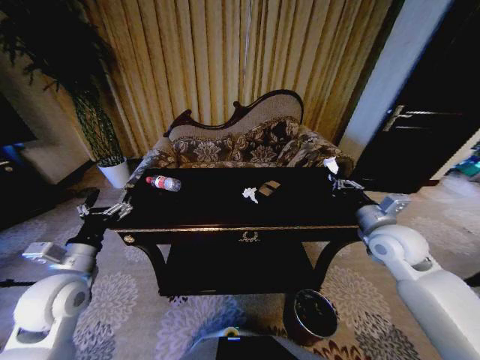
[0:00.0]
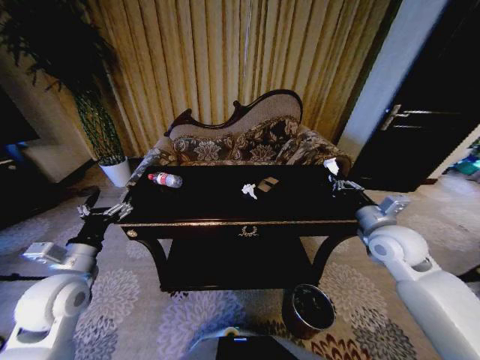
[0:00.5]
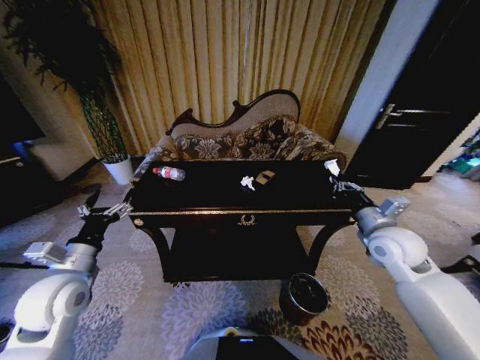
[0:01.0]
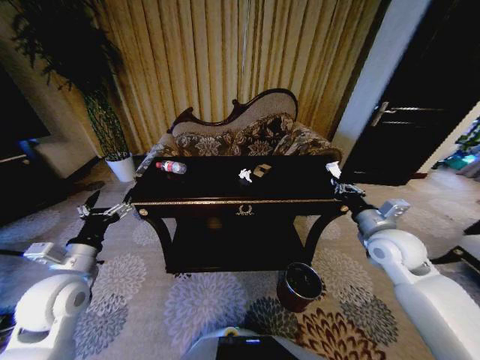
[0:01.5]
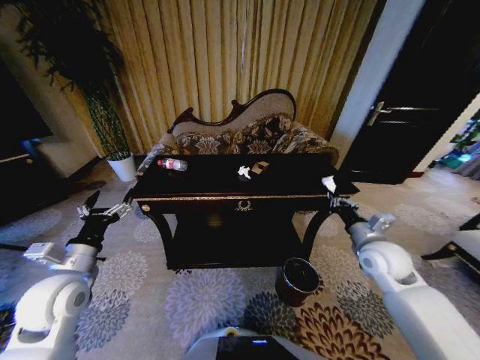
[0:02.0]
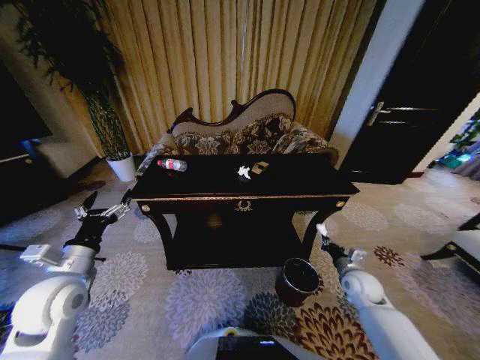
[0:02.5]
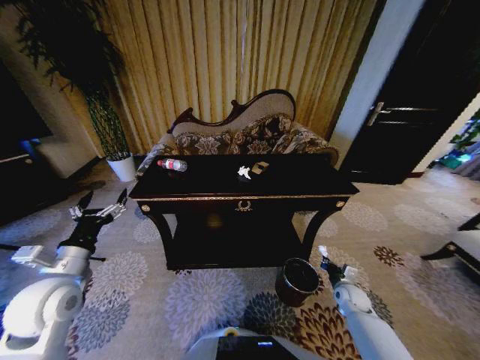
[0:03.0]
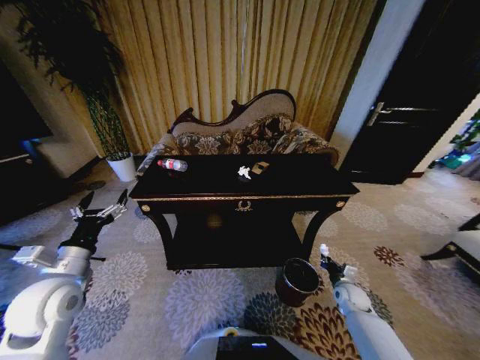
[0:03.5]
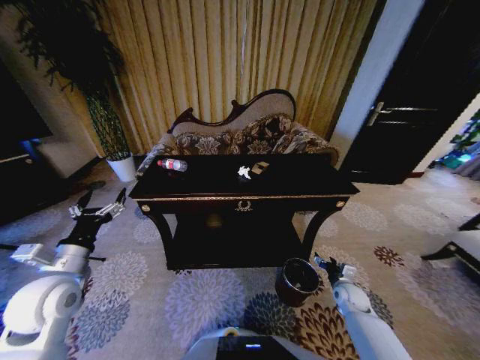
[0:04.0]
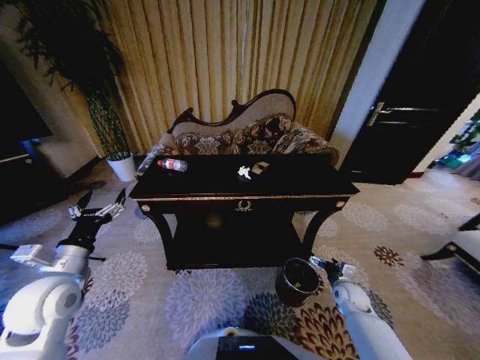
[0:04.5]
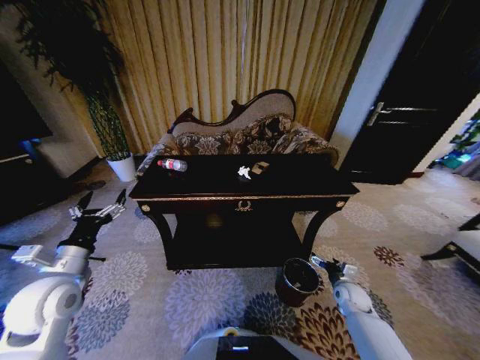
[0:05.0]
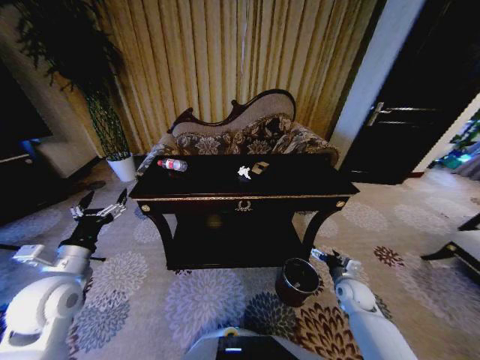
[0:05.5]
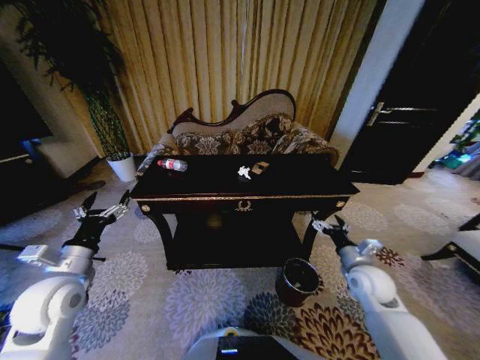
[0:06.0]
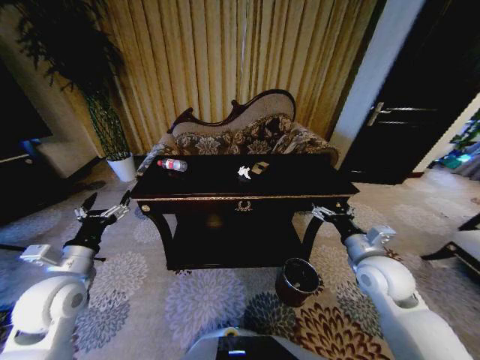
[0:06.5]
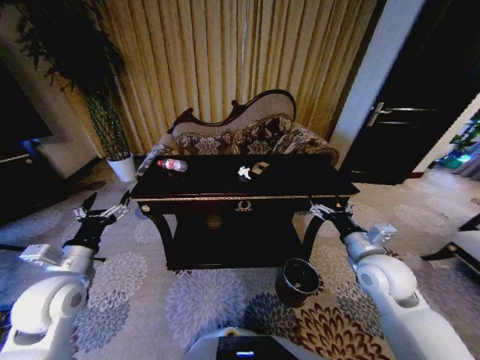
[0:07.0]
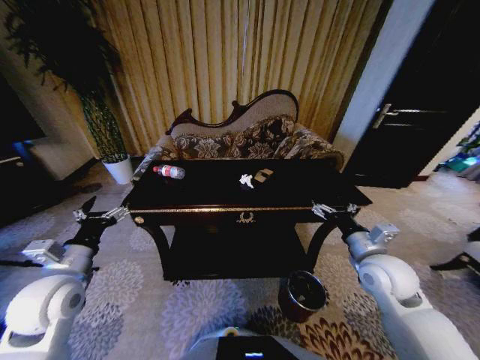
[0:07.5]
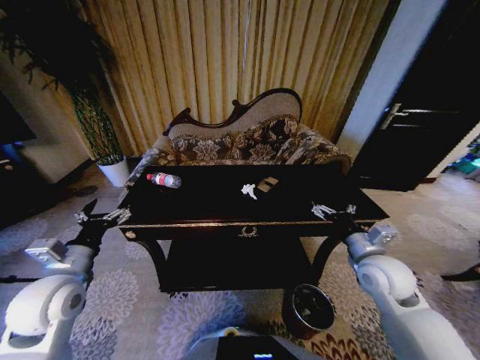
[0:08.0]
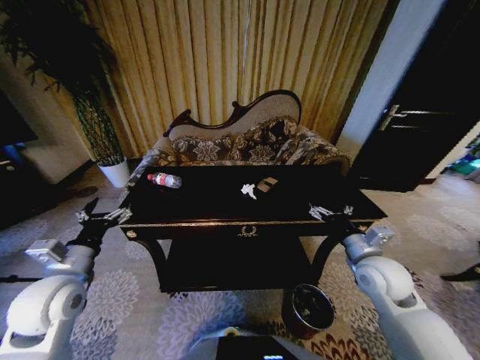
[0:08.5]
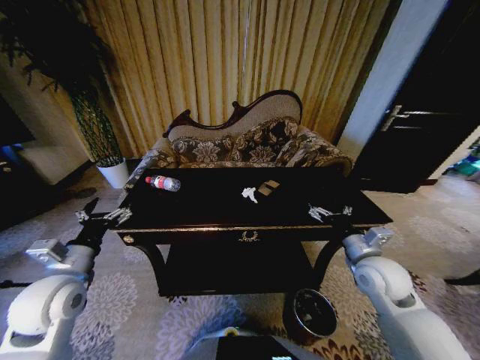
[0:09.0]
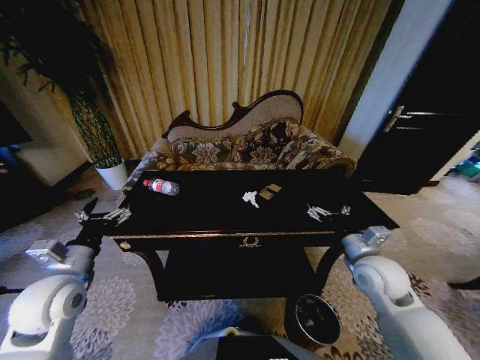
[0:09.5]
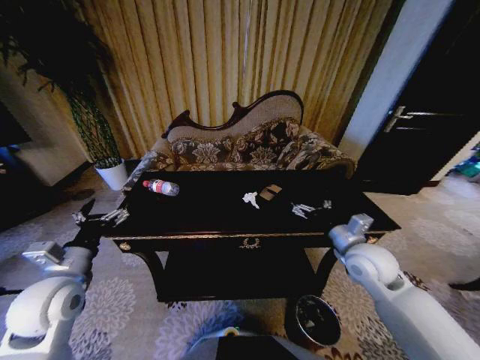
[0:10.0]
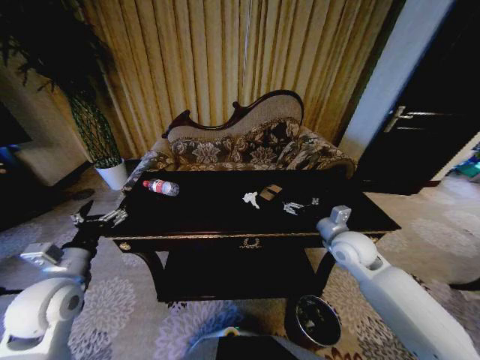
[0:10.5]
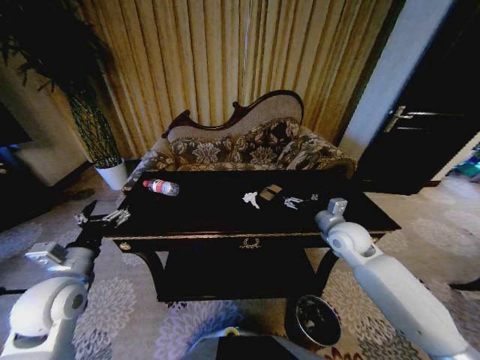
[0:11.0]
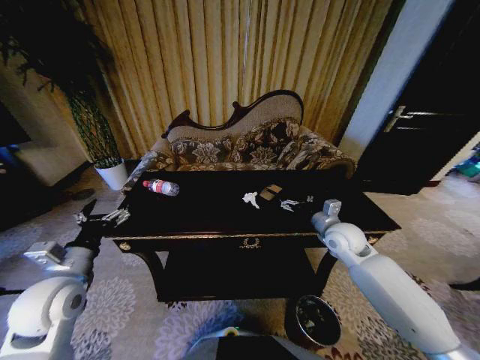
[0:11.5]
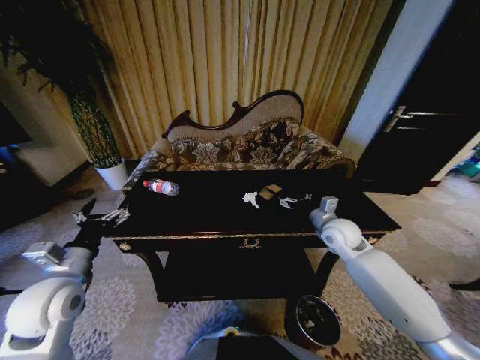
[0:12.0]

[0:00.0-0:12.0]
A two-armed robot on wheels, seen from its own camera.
Task of the whole recording: Move to the front of the table and place the trash on the table into the trash bin.
0:00.0 to 0:02.0: The right gripper is displaced downward by about 5 cm.
0:02.0 to 0:04.0: The right gripper goes about 25 cm downward, and opens up.
0:04.0 to 0:06.0: The right gripper goes about 15 cm upward.
0:06.0 to 0:08.0: The right gripper is displaced upward by some 10 cm.
0:08.0 to 0:10.0: There are only small adjustments of the grippers.
0:10.0 to 0:12.0: The right gripper shifts some 10 cm forward.

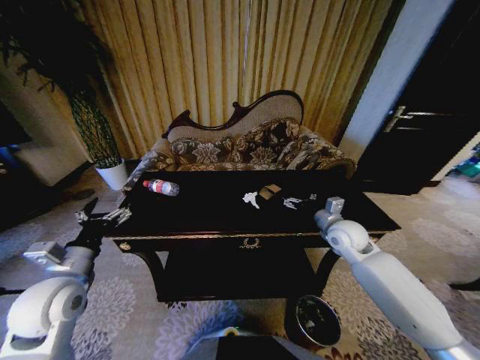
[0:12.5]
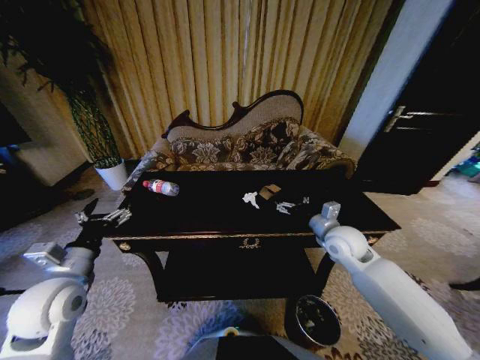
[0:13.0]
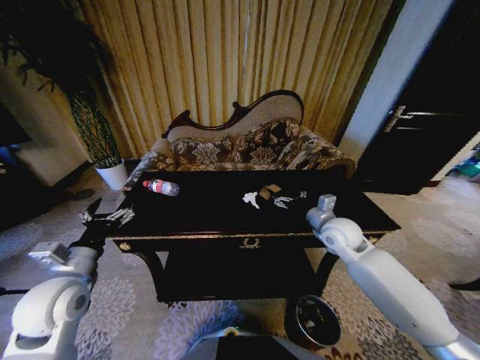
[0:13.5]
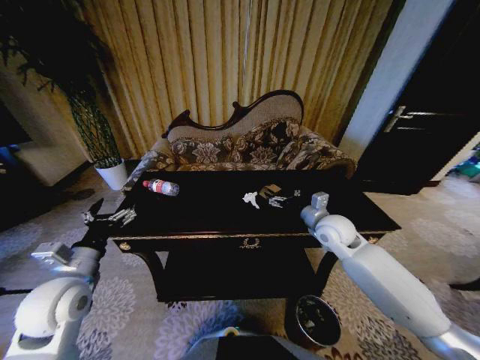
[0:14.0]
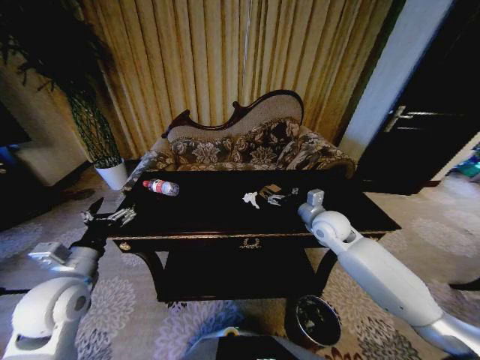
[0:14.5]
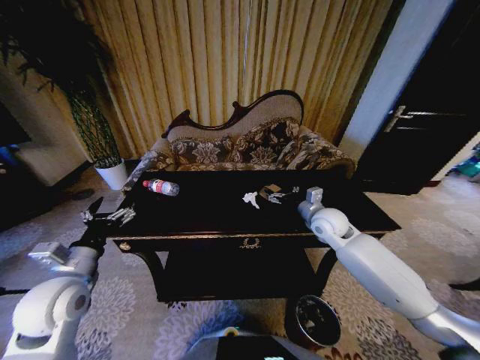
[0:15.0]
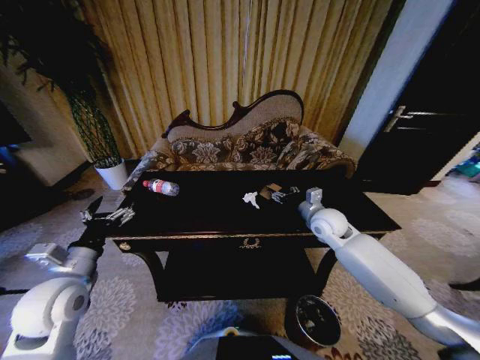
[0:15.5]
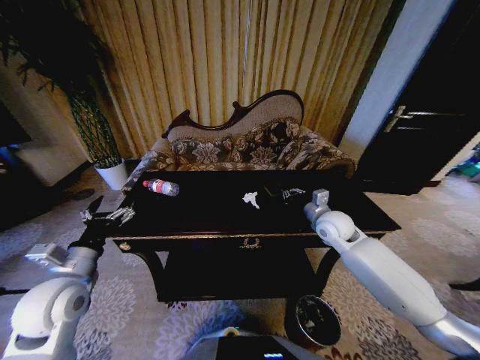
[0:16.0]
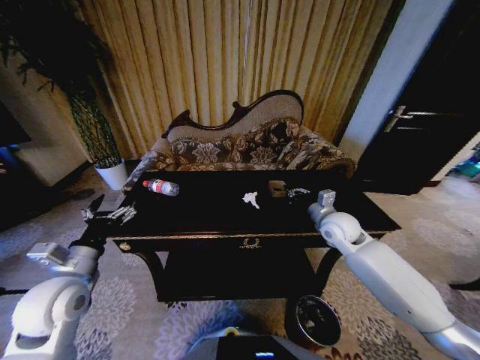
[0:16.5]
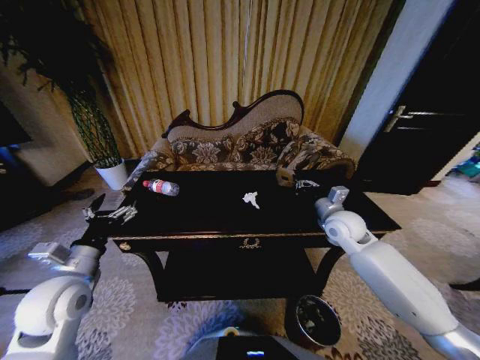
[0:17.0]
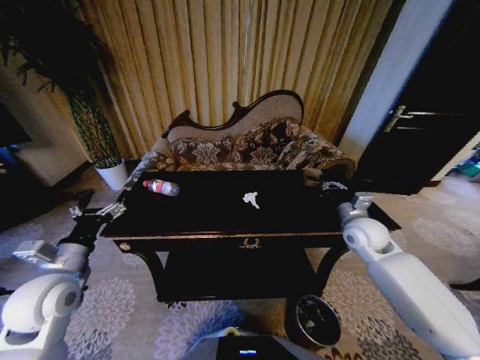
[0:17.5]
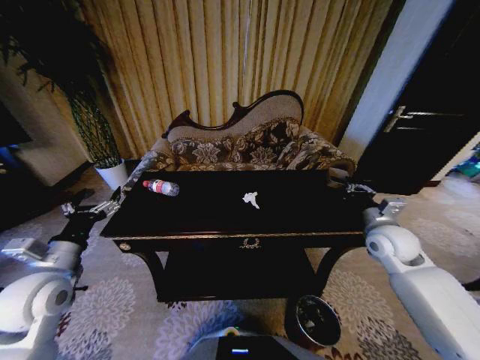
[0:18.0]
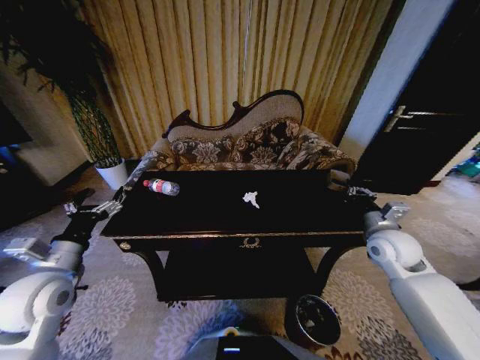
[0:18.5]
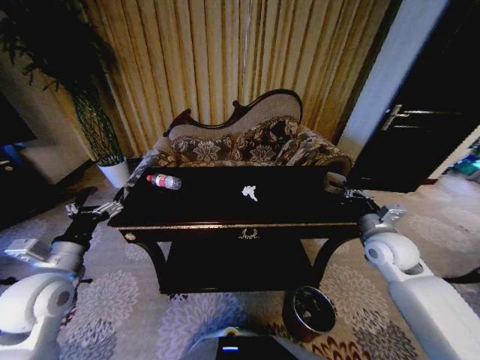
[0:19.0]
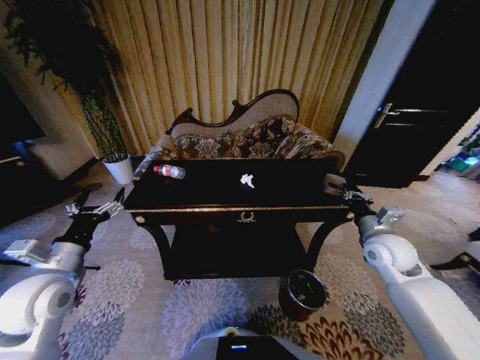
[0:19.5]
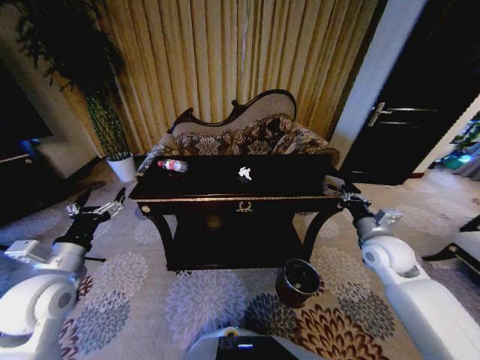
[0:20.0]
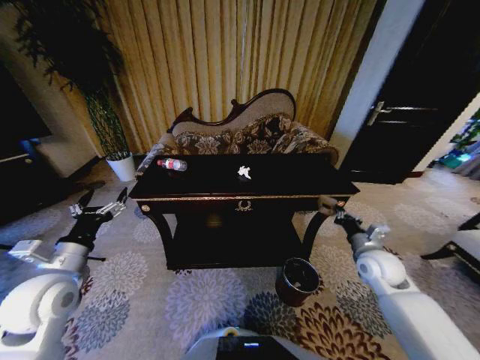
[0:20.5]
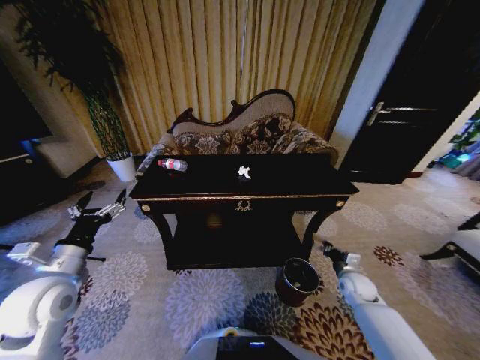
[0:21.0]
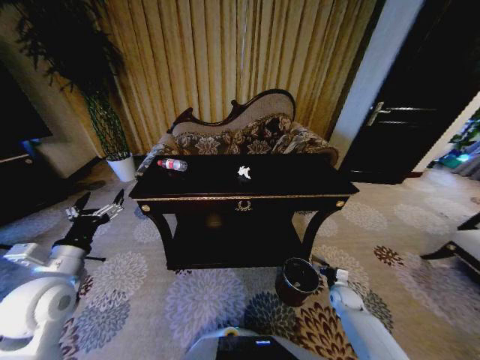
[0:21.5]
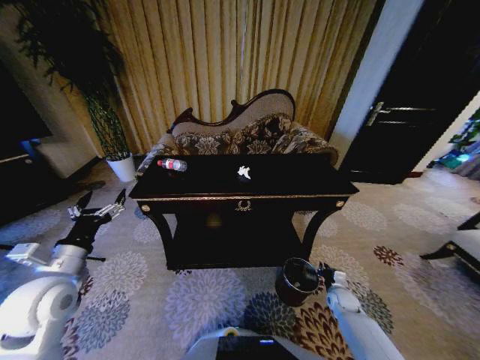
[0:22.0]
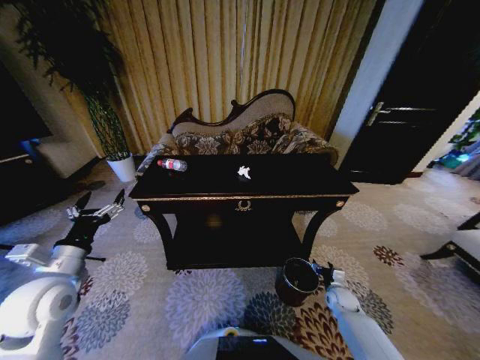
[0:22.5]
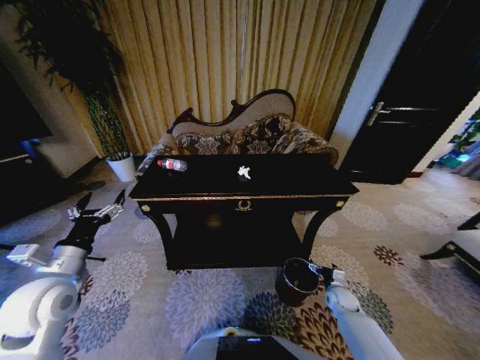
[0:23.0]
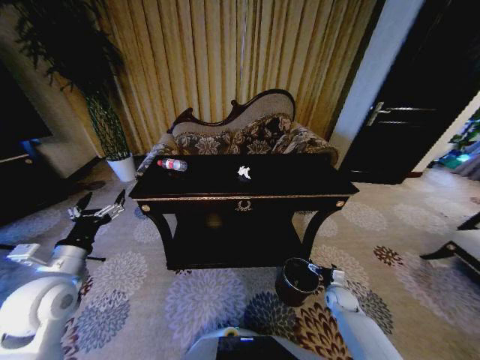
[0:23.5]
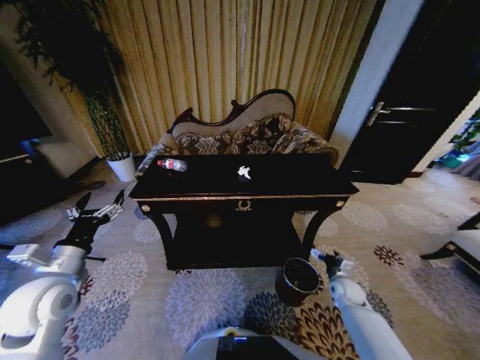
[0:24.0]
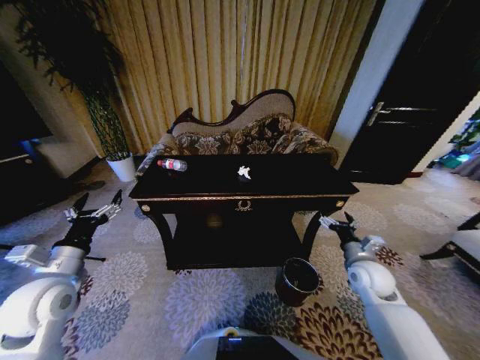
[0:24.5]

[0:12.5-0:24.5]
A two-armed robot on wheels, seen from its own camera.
Task of the whole recording: Move to the front of the table and place the trash on the table into the trash bin.
0:12.5 to 0:14.5: The right gripper ends up approximately 5 cm from where it was.
0:14.5 to 0:16.5: The right gripper closes its fingers.
0:16.5 to 0:18.5: The right gripper moves to the right and backward, some 10 cm.
0:18.5 to 0:20.5: The right gripper travels downward by some 10 cm.
0:20.5 to 0:22.5: The right gripper heads downward, covering approximately 25 cm, and opens up.
0:22.5 to 0:24.5: The right gripper moves upward, about 25 cm, and opens its fingers.

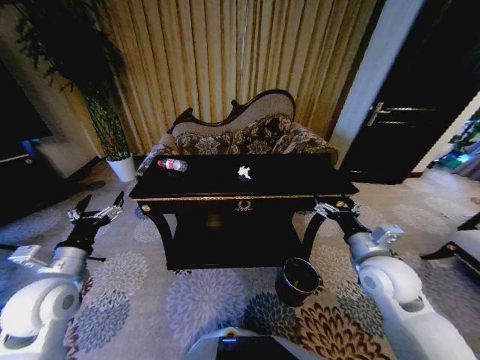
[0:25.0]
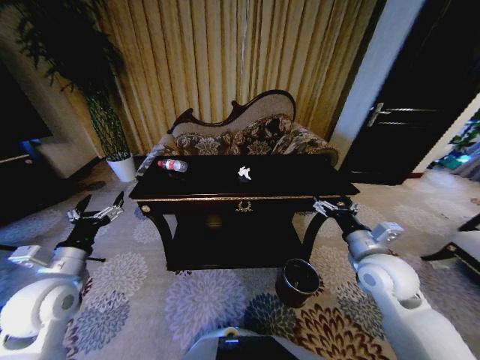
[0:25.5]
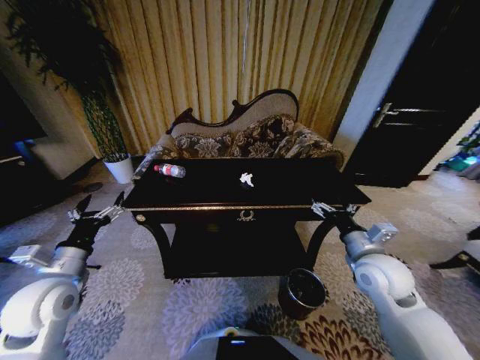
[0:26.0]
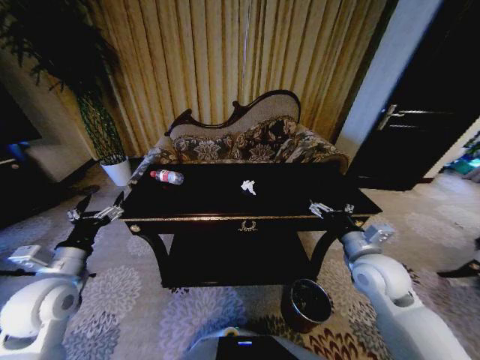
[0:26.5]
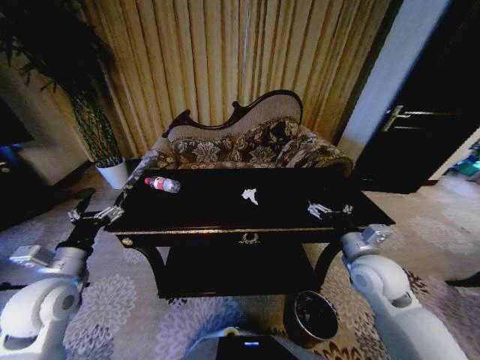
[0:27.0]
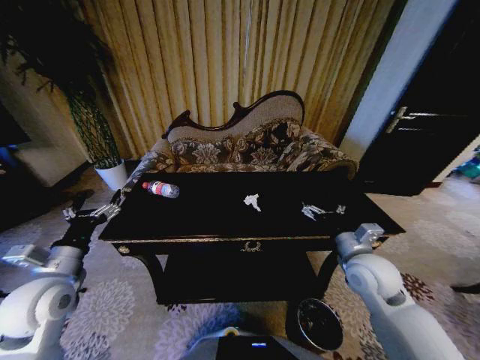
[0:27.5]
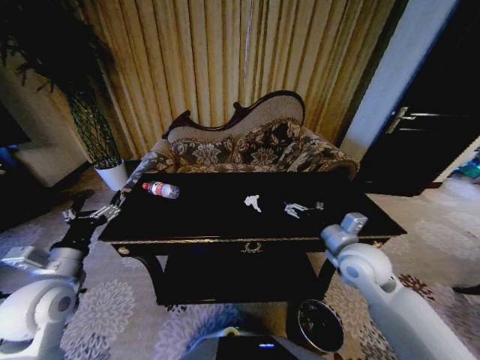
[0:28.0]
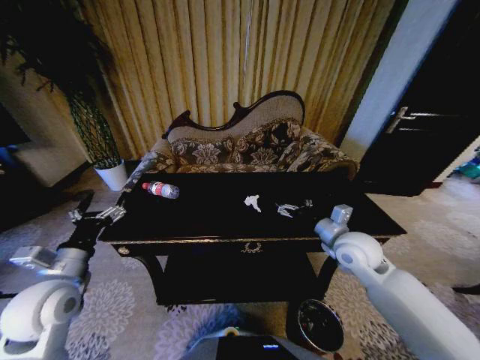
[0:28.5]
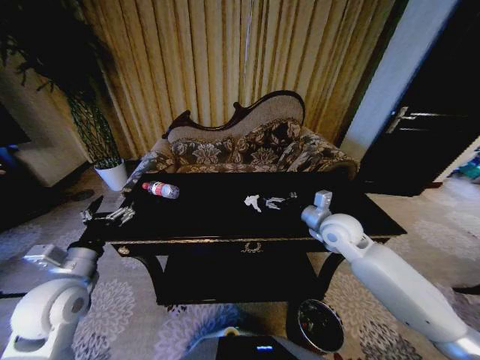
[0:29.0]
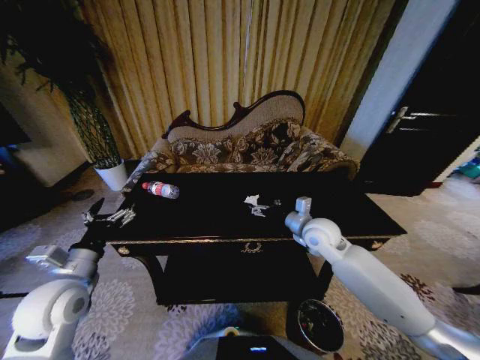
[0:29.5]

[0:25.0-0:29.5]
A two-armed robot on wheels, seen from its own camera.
Task of the whole recording: Move to the front of the table and place the trash on the table into the trash bin.
0:27.0 to 0:29.5: The right gripper goes approximately 15 cm forward and to the left.
